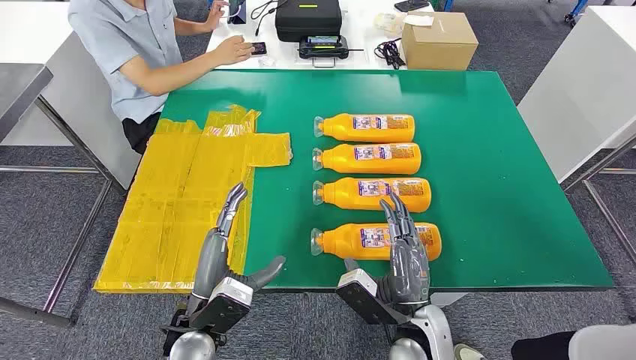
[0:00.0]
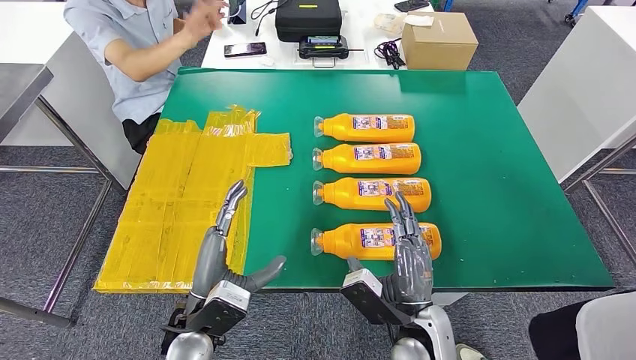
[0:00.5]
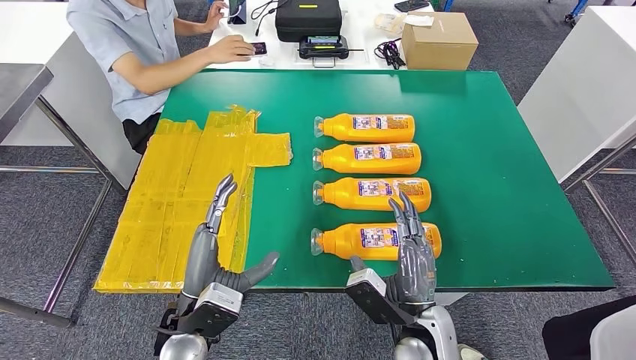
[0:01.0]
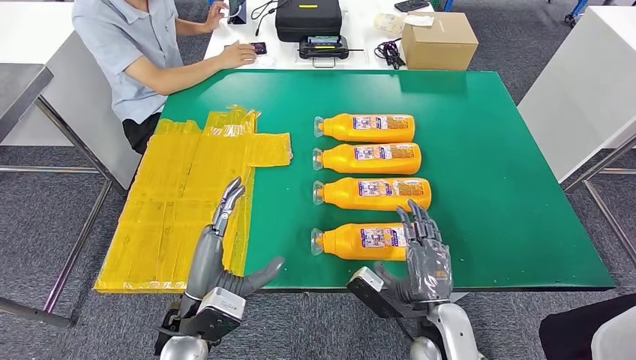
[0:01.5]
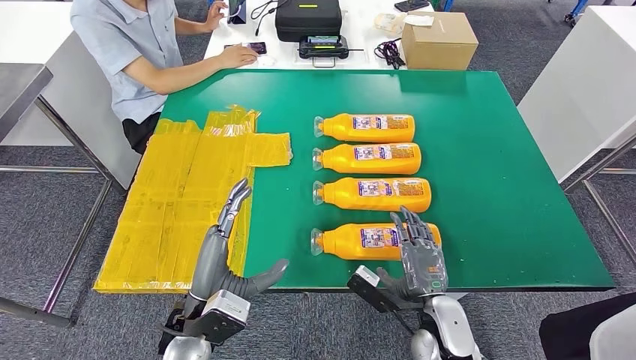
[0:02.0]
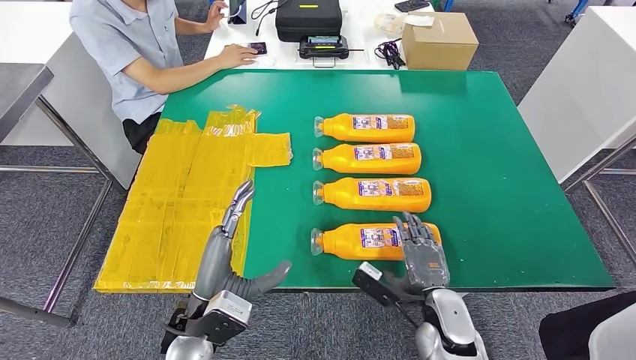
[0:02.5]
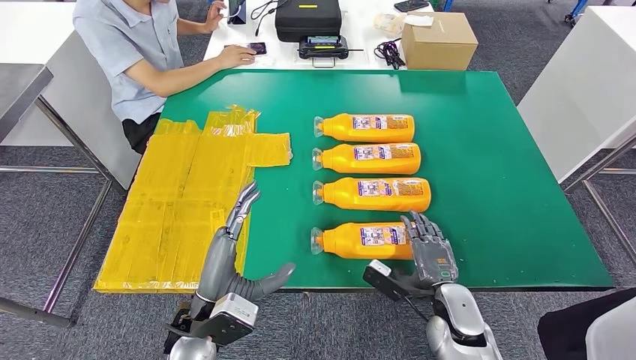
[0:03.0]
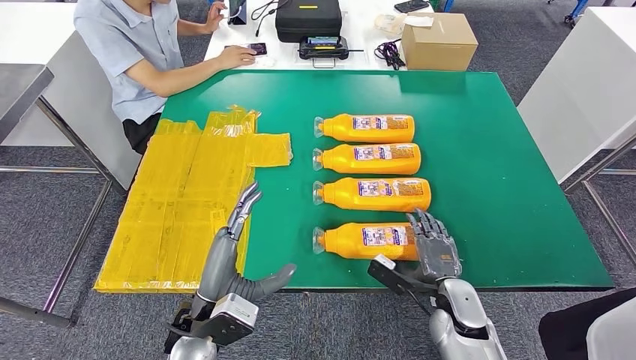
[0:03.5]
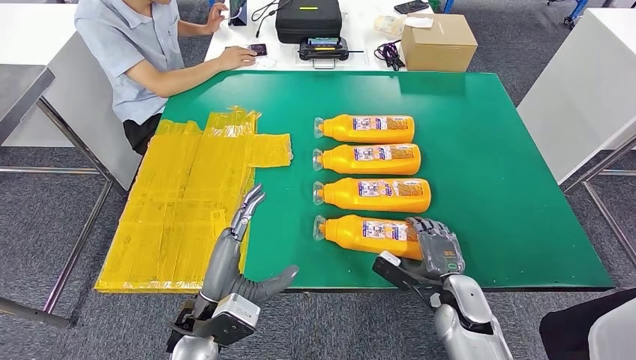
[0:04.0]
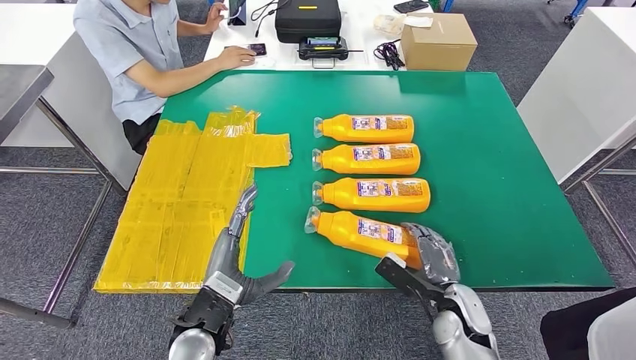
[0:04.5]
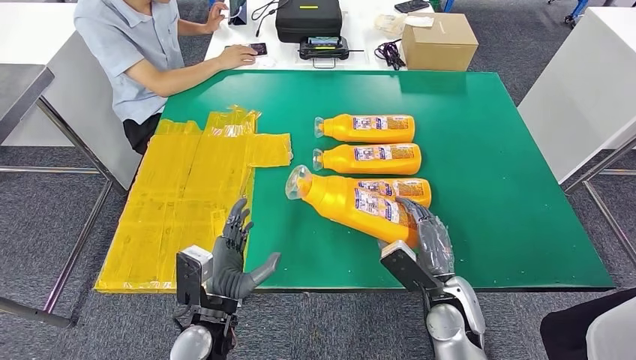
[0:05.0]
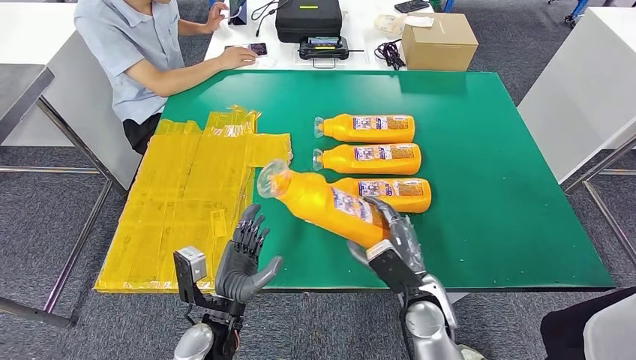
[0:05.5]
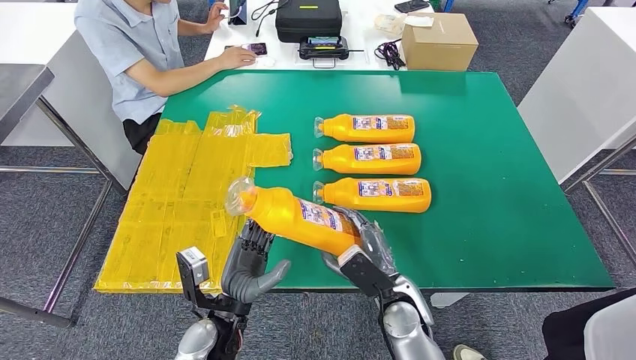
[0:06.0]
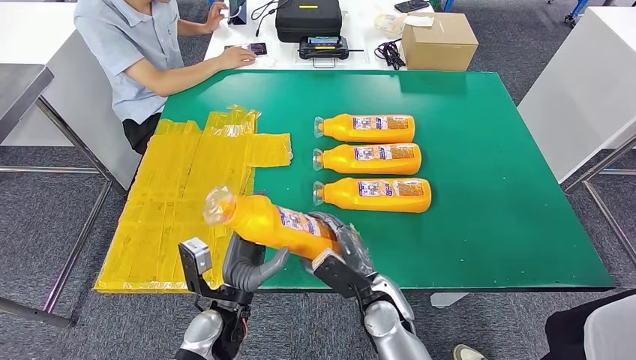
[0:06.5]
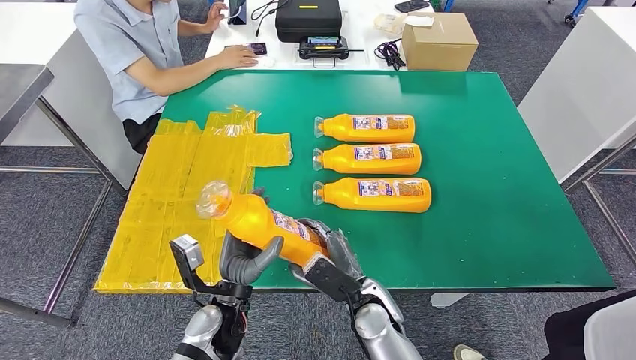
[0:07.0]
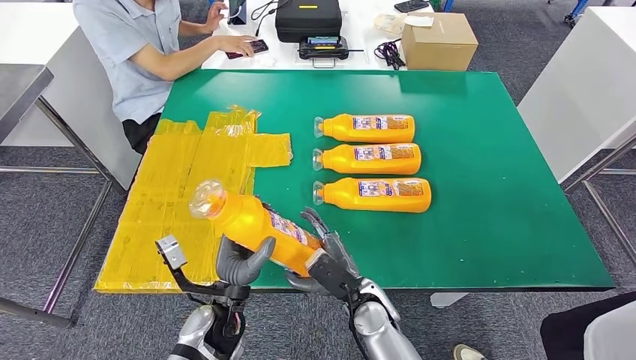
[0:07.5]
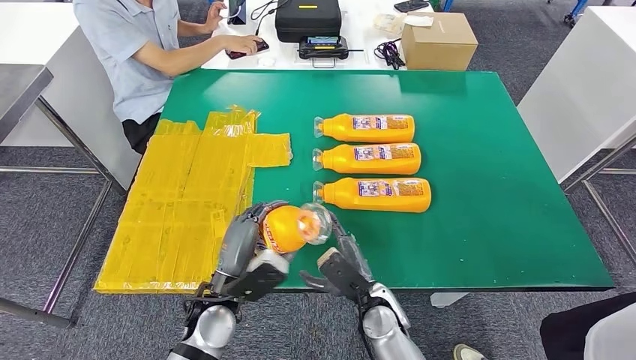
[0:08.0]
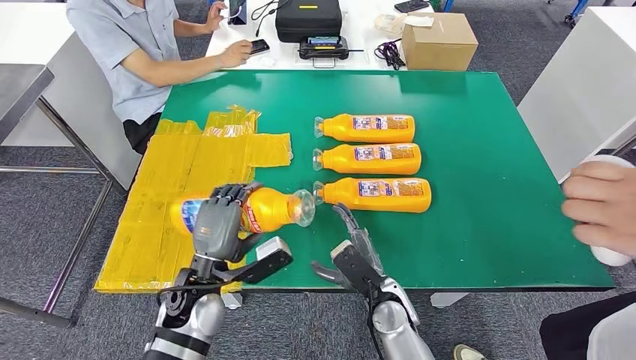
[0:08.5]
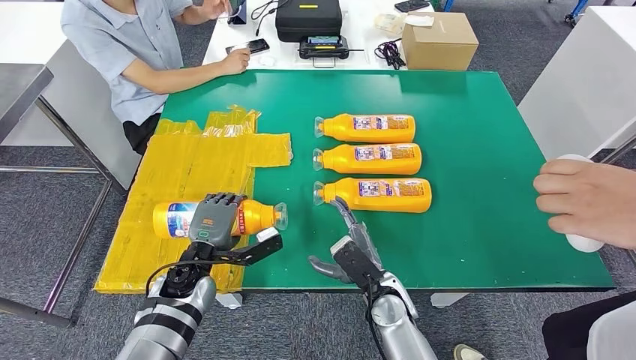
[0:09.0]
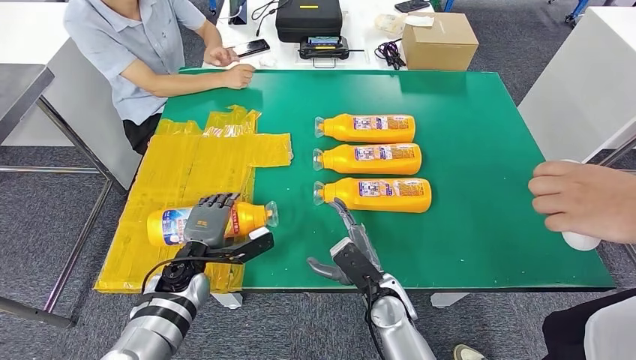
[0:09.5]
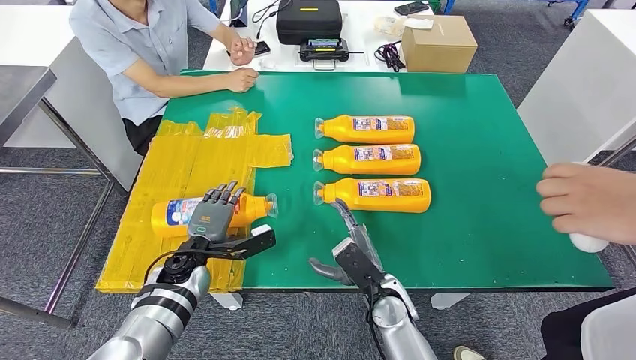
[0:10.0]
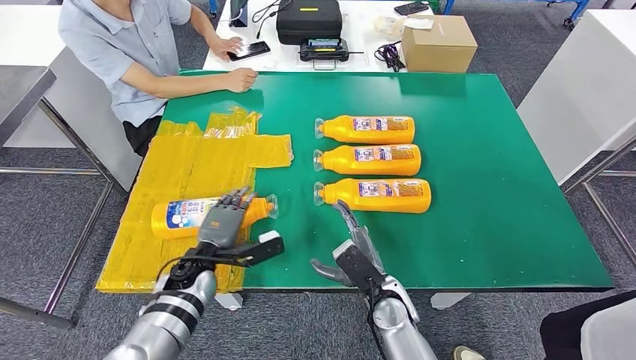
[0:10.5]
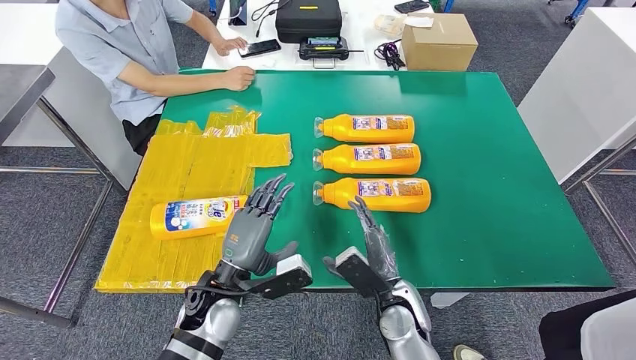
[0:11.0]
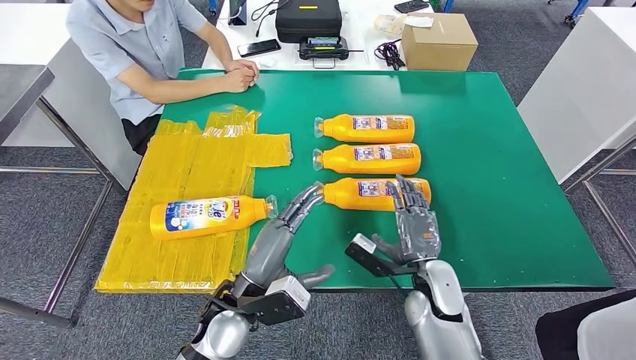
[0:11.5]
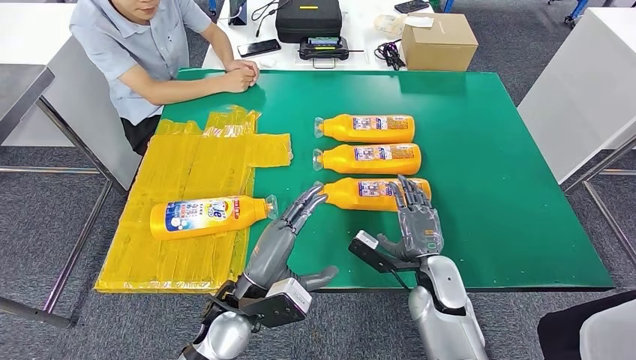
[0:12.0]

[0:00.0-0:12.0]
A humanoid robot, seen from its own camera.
Step, 0:00.0 to 0:06.5: Take the bottle from the table.
Step, 0:07.0 to 0:10.5: Flip the bottle to face forward.
0:02.0 to 0:04.0: The right hand is displaced to the right by about 5 cm.
0:04.0 to 0:06.0: The right hand heads to the left, covering about 15 cm, while the left hand moves downward, about 5 cm.

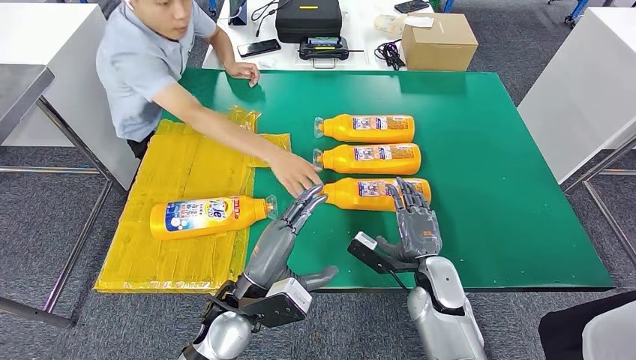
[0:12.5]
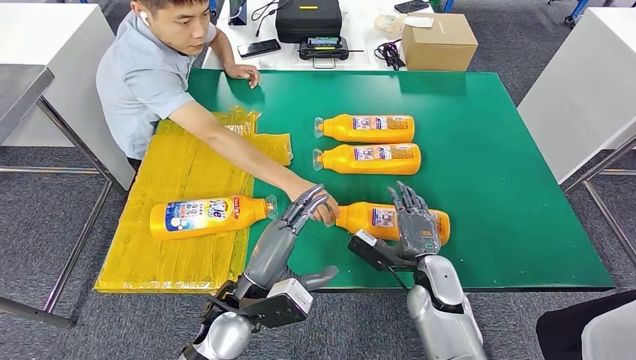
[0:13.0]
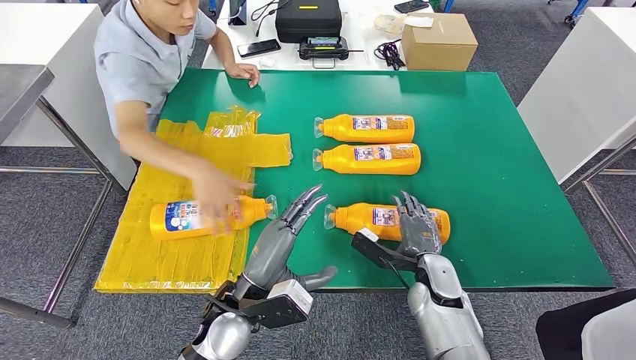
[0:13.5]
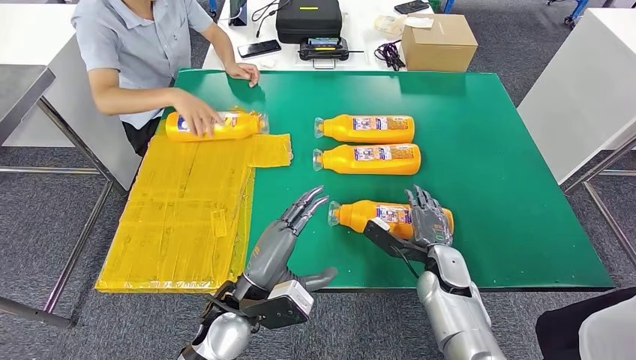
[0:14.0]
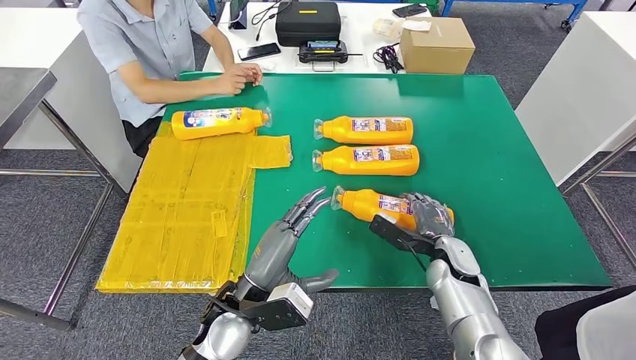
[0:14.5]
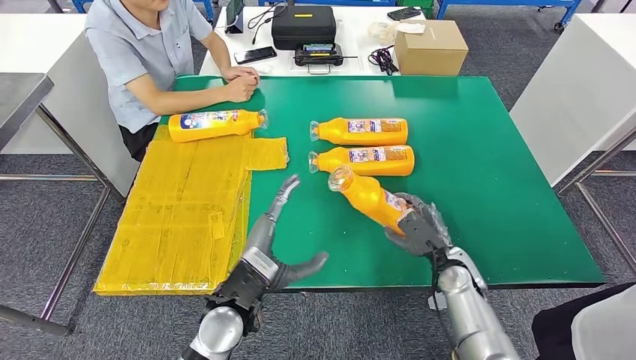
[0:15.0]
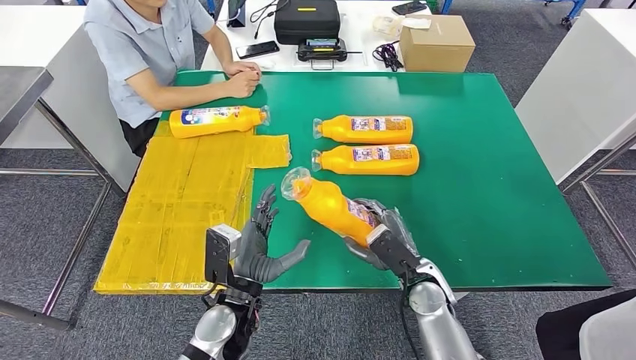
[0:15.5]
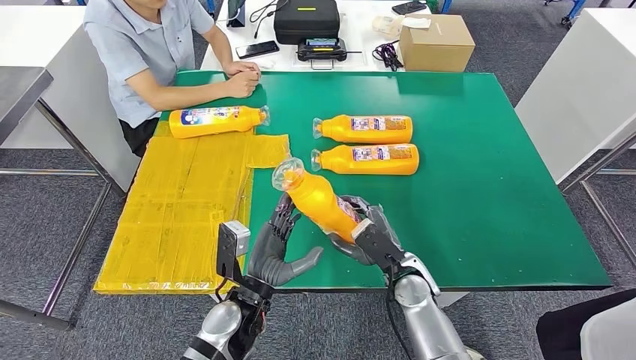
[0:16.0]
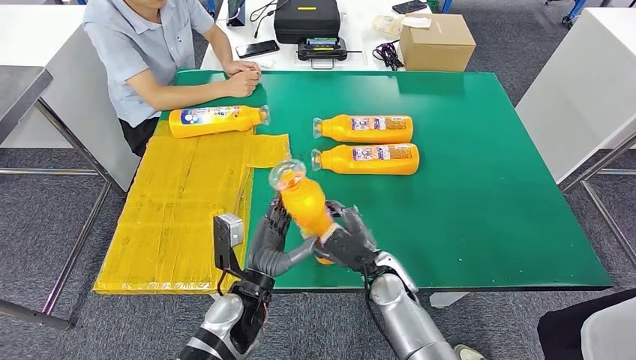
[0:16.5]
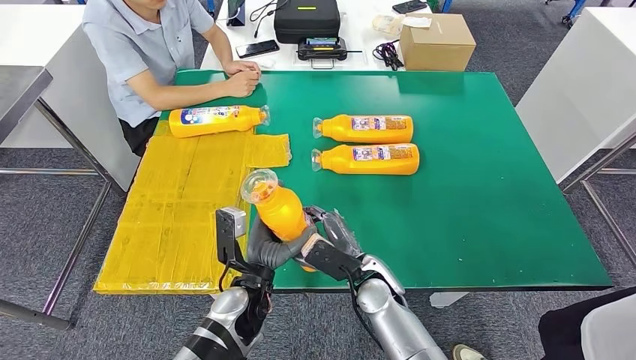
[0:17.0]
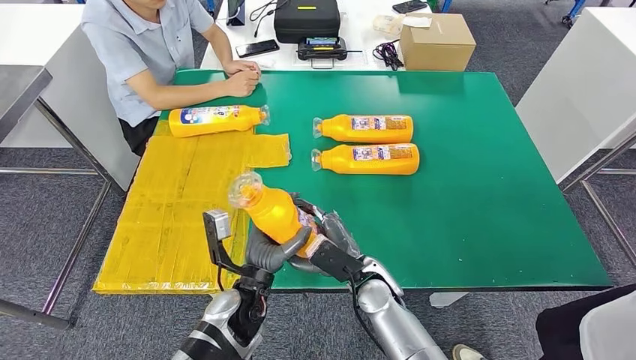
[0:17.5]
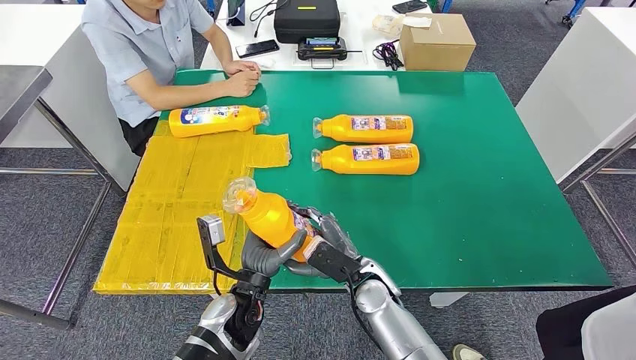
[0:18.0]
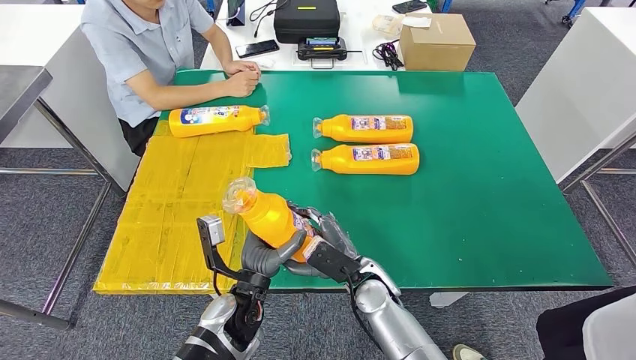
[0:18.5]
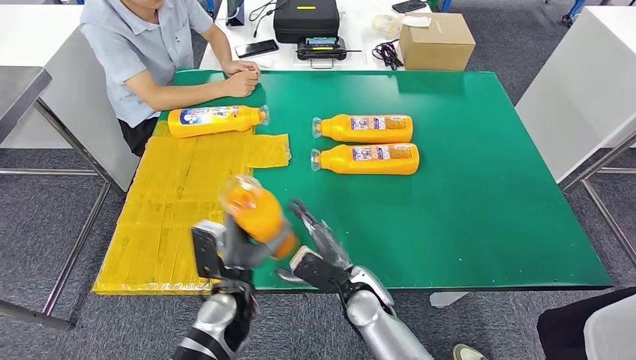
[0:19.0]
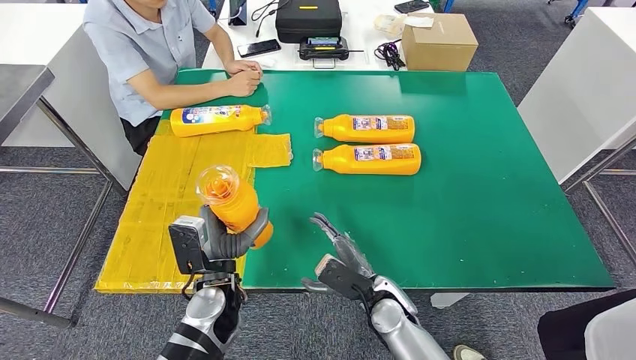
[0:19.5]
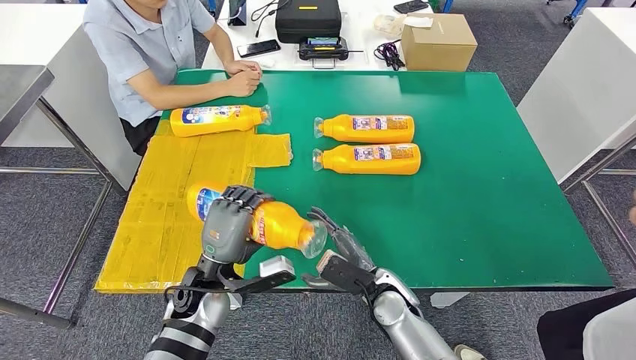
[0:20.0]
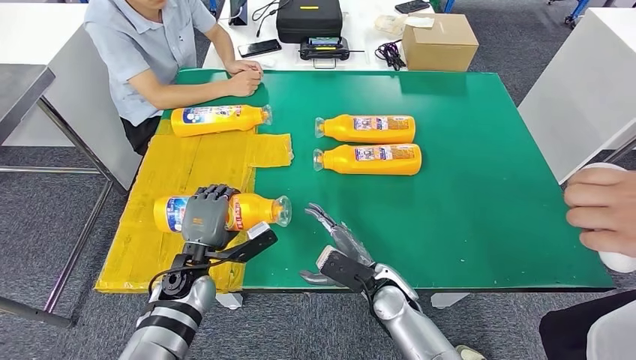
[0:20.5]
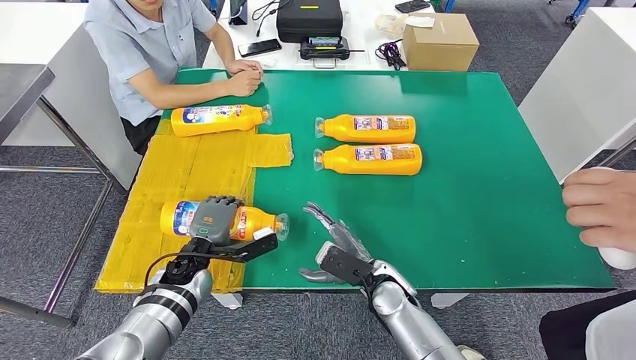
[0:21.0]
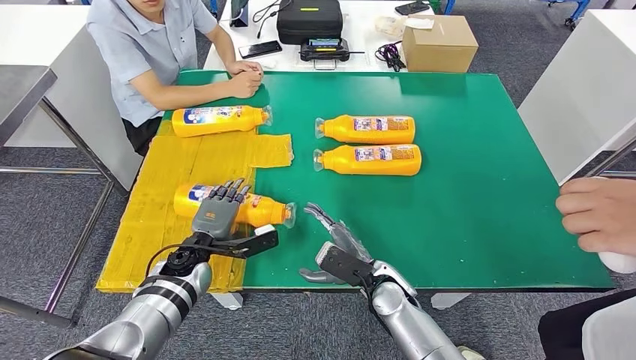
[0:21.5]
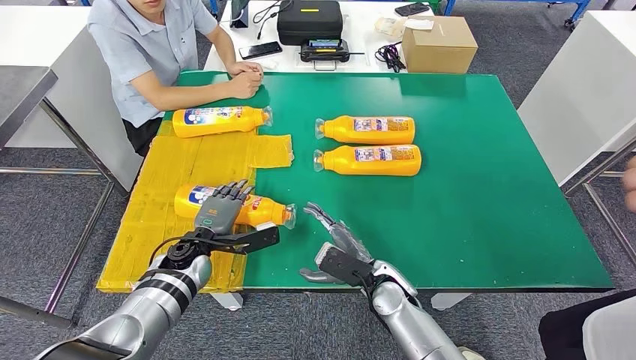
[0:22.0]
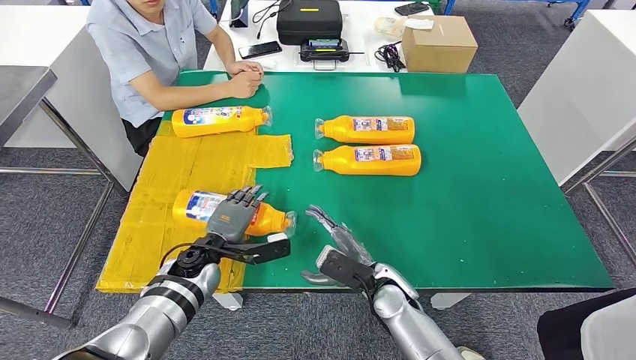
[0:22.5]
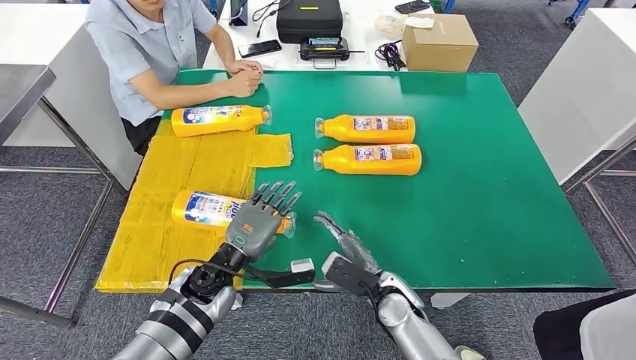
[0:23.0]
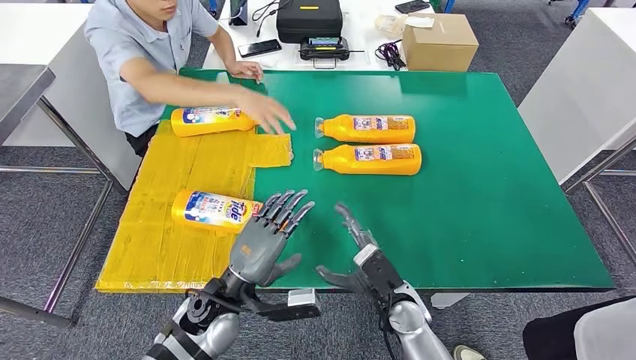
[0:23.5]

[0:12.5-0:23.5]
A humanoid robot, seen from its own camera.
Step, 0:12.5 to 0:17.0: Pick up the bottle from the table.
Step, 0:18.0 to 0:21.5: Flip the bottle to face forward.
0:16.0 to 0:18.0: The right hand goes approximately 5 cm to the left.
0:18.0 to 0:20.0: The left hand is displaced to the left by roughly 10 cm.
0:20.0 to 0:21.5: The left hand goes roughly 5 cm forward.
